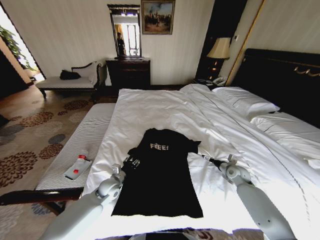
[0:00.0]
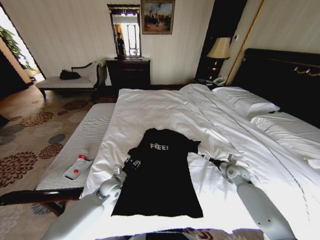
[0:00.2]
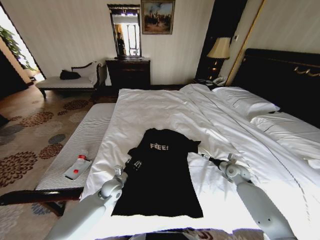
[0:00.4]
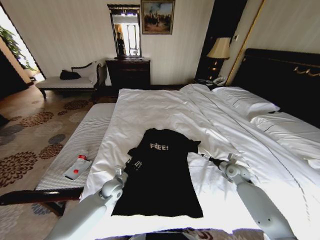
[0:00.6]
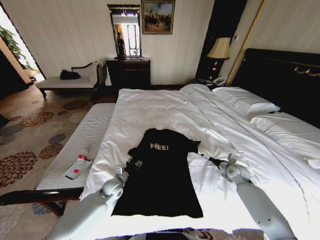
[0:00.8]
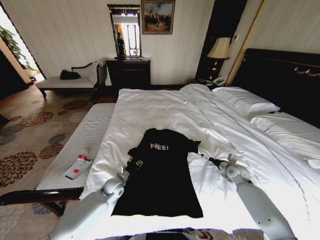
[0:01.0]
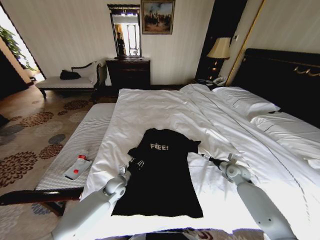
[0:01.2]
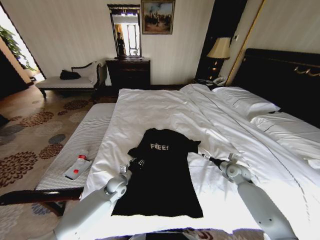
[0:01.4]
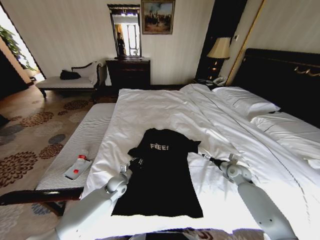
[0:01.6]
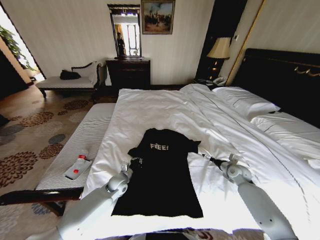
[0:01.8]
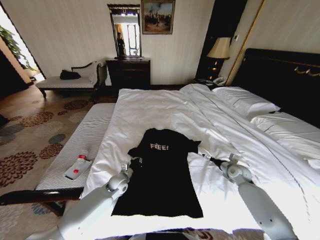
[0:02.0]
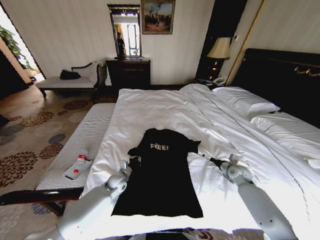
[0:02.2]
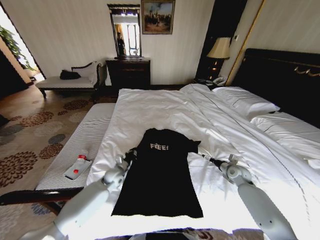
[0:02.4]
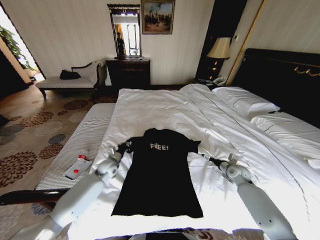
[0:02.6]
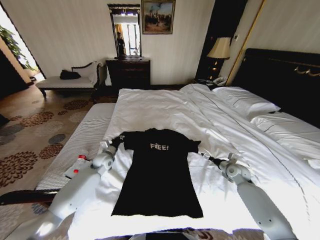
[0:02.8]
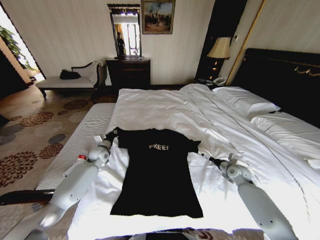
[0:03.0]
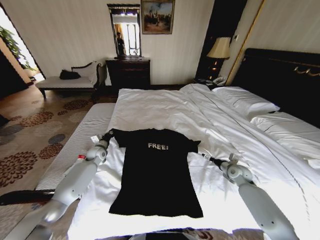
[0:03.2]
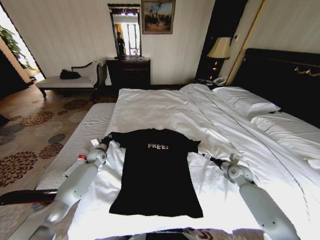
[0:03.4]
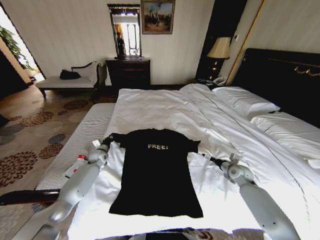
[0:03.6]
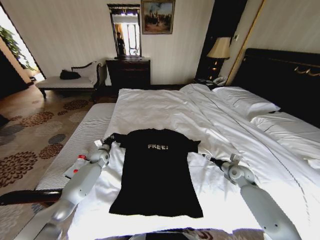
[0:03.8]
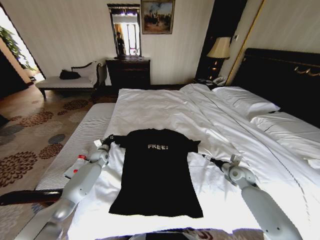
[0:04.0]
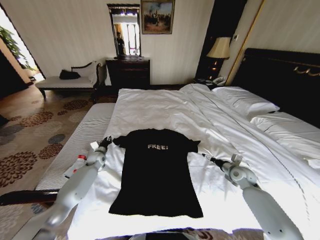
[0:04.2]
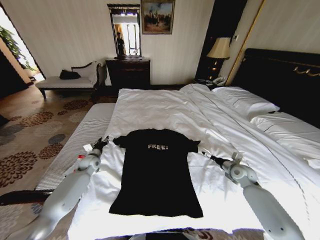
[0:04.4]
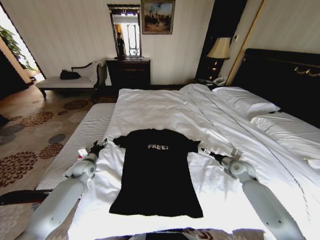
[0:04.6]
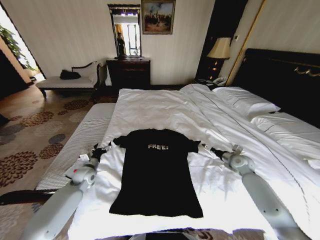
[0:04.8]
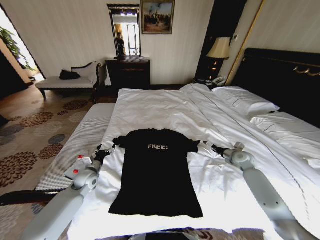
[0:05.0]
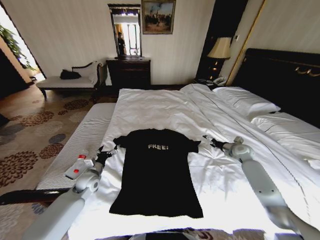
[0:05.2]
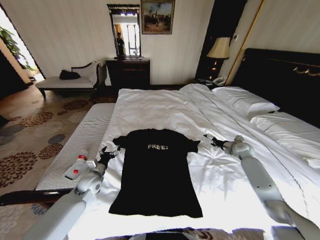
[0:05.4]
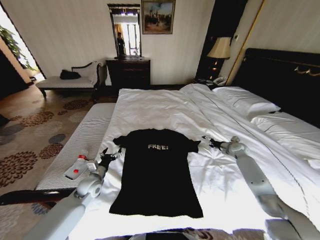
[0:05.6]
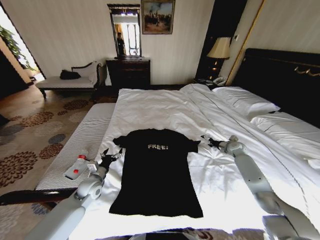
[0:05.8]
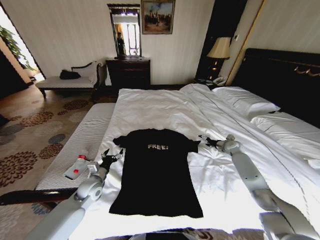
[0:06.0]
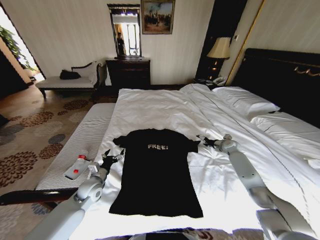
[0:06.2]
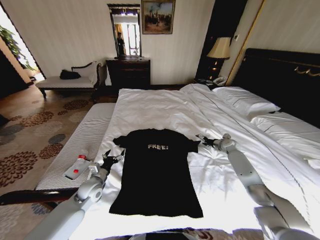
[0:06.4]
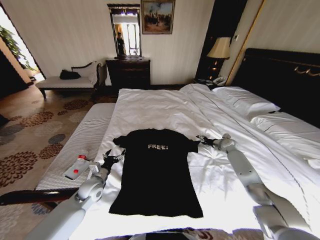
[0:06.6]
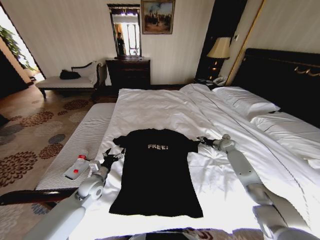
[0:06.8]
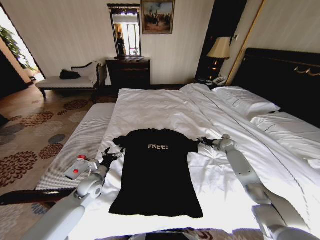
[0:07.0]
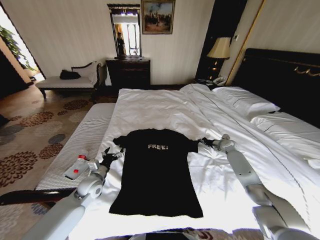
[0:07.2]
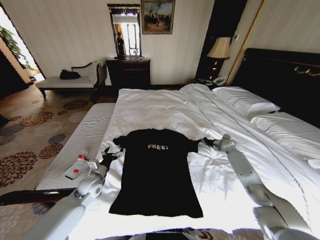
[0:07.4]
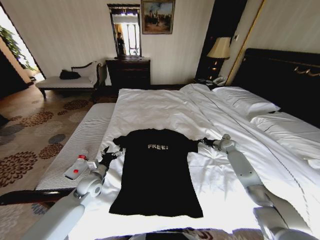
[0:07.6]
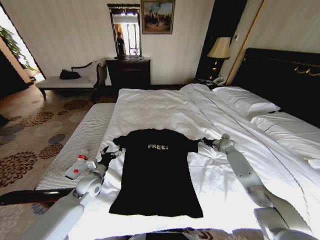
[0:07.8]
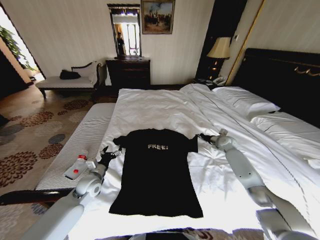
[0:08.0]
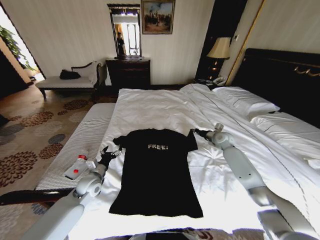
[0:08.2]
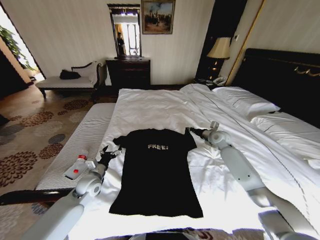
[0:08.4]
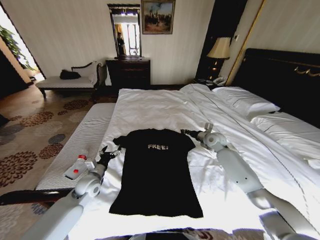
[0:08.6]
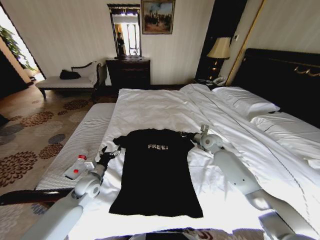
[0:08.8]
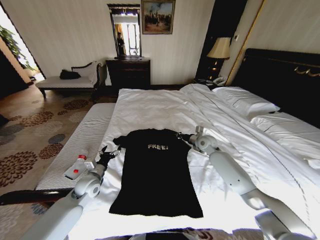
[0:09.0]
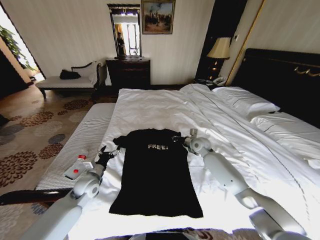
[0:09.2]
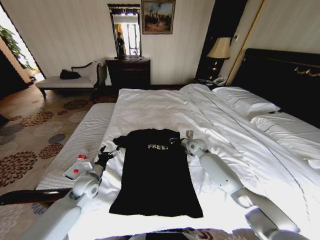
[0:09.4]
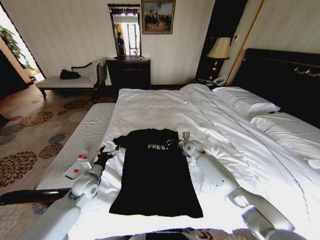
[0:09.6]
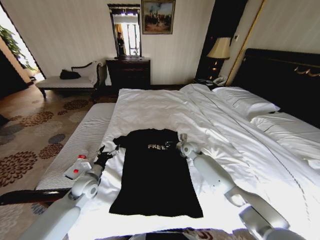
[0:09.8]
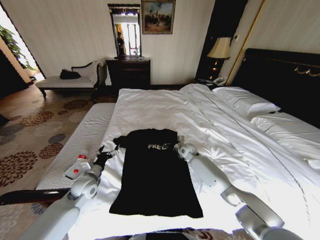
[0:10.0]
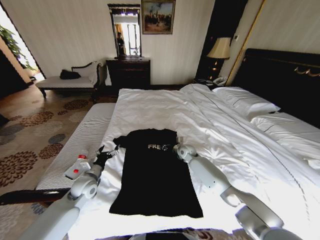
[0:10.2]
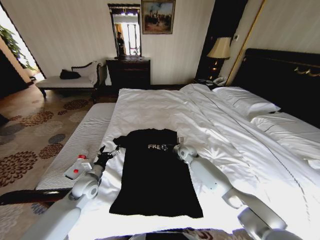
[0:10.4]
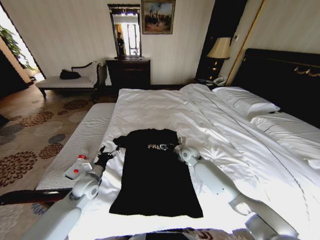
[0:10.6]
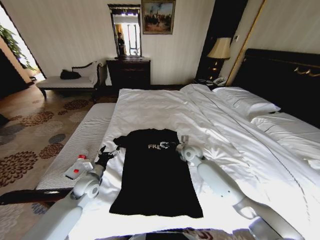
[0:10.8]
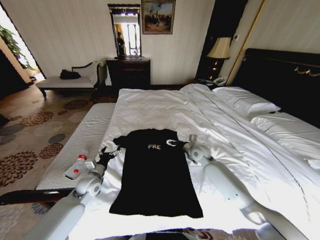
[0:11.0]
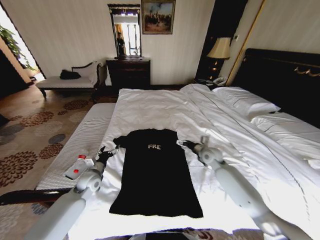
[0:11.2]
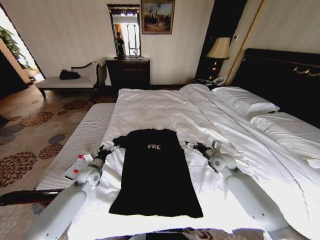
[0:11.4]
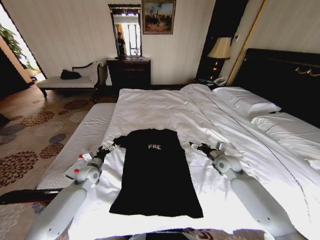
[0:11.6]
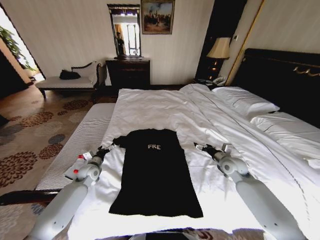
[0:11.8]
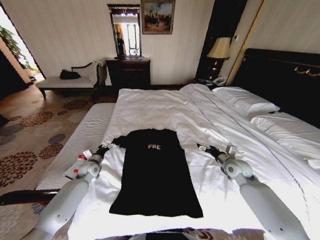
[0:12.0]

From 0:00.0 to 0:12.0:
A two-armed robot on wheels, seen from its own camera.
Task of the whole recording: Fold the clothes on the bed.
From 0:00.0 to 0:01.6: The left gripper closes its fingers.
From 0:01.6 to 0:03.0: The left gripper travels forward, to the left and upward by about 20 cm.
From 0:03.0 to 0:04.4: The left gripper moves to the left, some 5 cm, and opens up.
From 0:04.4 to 0:06.0: The left gripper shifts about 15 cm backward and to the right, and opens its fingers, while the right gripper travels forward by about 15 cm.
From 0:06.0 to 0:07.6: The right gripper closes up.
From 0:07.6 to 0:09.0: The right gripper moves to the left, roughly 20 cm.
From 0:09.0 to 0:10.4: The right gripper travels to the left and downward by roughly 10 cm.
From 0:10.4 to 0:12.0: The right gripper is displaced to the right and backward by approximately 25 cm, and opens up, while the left gripper heads forward, covering some 10 cm.

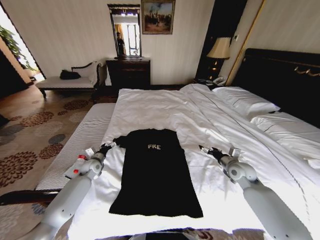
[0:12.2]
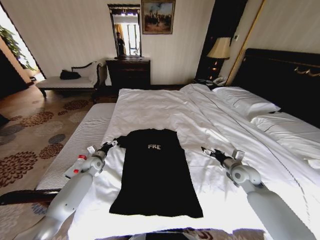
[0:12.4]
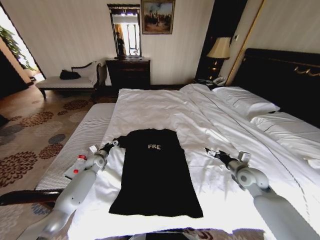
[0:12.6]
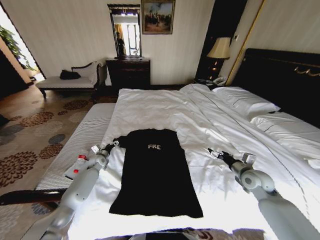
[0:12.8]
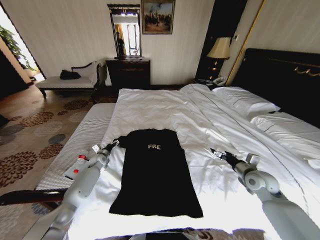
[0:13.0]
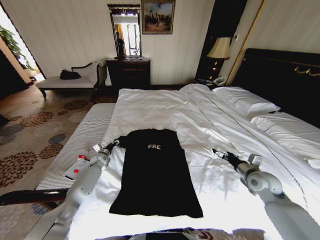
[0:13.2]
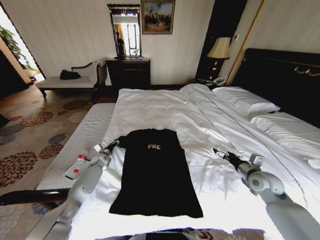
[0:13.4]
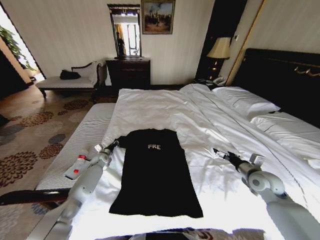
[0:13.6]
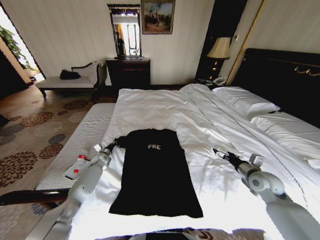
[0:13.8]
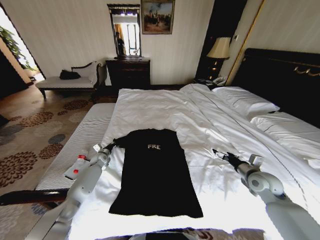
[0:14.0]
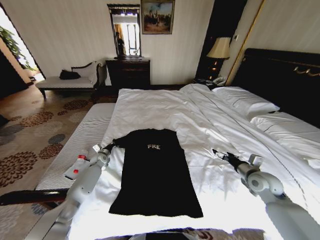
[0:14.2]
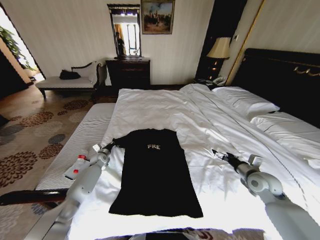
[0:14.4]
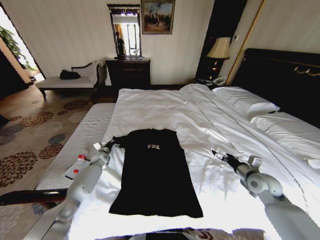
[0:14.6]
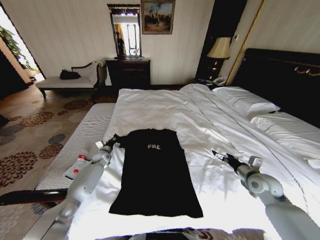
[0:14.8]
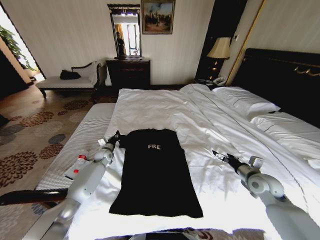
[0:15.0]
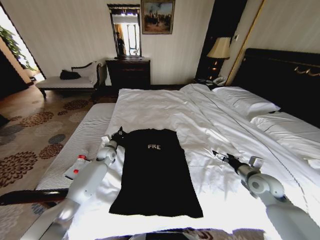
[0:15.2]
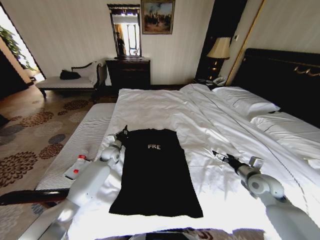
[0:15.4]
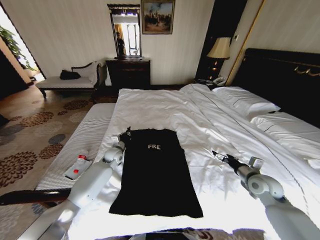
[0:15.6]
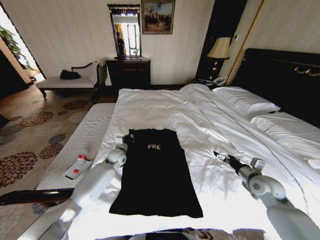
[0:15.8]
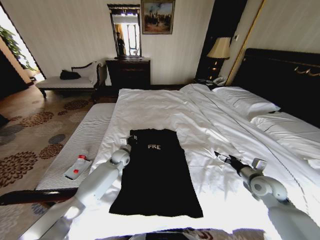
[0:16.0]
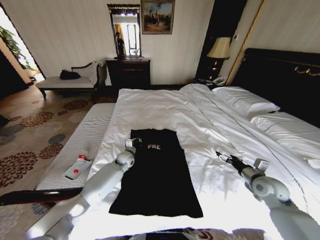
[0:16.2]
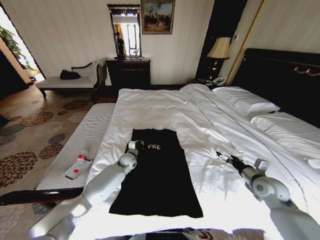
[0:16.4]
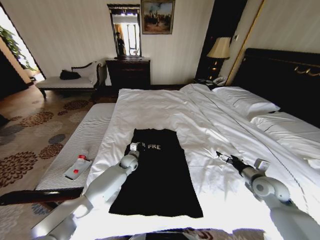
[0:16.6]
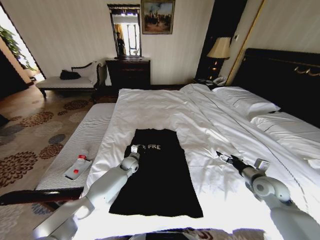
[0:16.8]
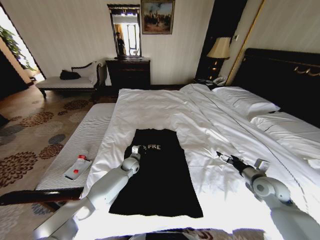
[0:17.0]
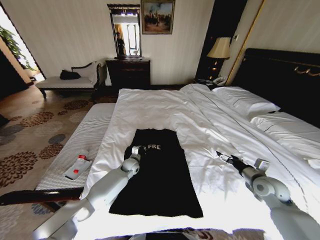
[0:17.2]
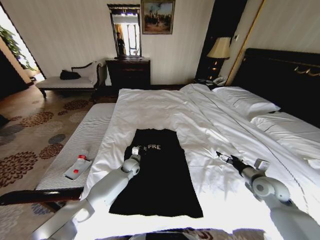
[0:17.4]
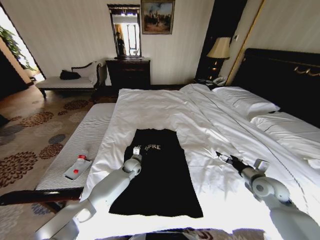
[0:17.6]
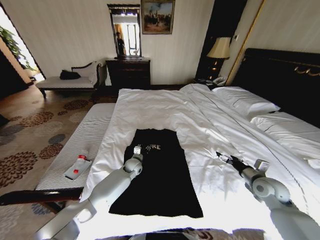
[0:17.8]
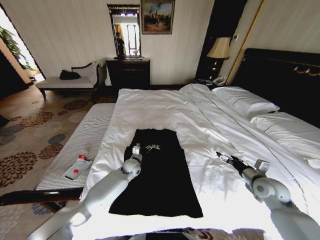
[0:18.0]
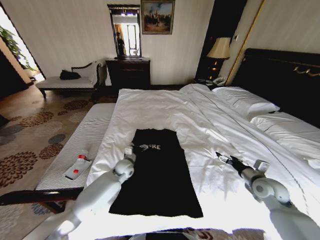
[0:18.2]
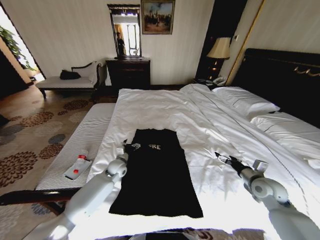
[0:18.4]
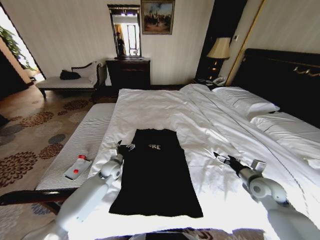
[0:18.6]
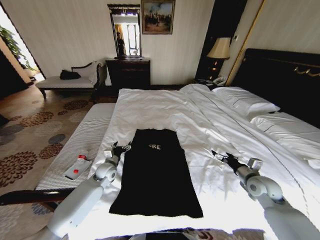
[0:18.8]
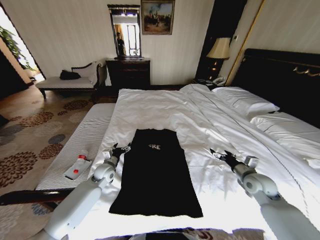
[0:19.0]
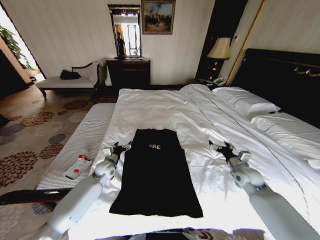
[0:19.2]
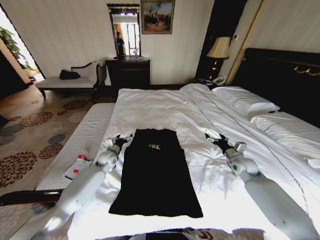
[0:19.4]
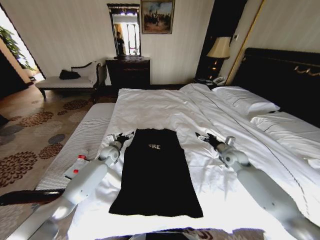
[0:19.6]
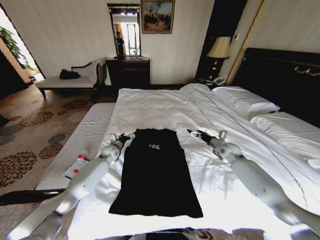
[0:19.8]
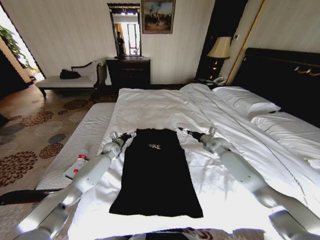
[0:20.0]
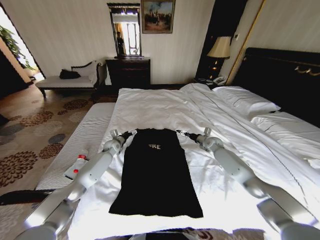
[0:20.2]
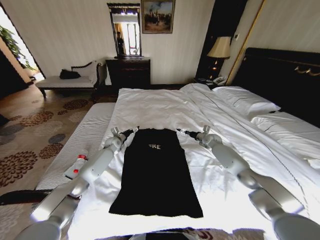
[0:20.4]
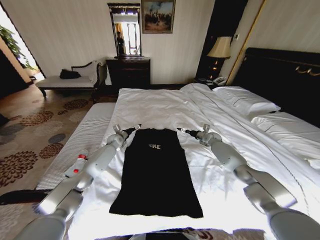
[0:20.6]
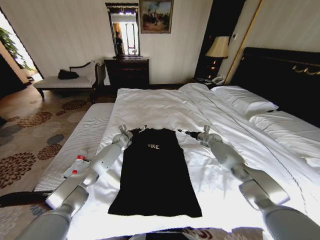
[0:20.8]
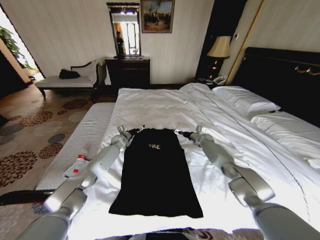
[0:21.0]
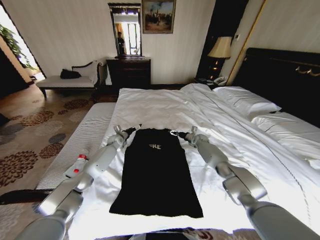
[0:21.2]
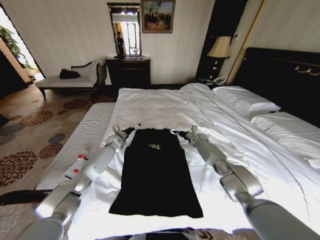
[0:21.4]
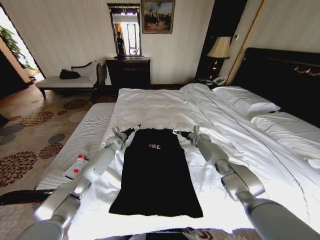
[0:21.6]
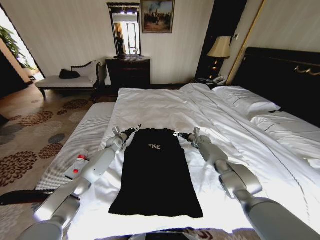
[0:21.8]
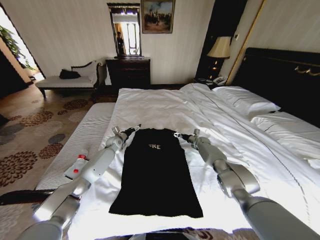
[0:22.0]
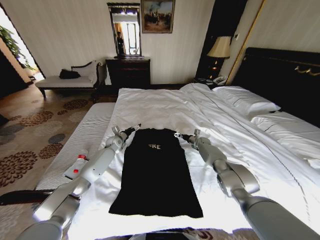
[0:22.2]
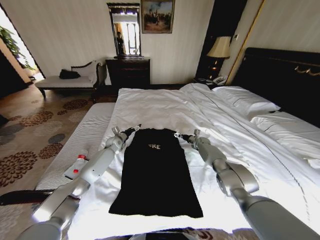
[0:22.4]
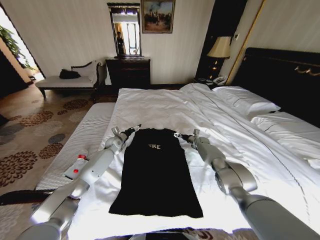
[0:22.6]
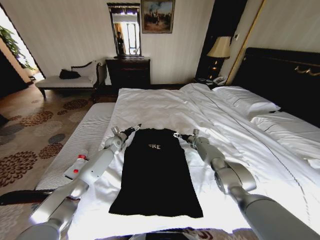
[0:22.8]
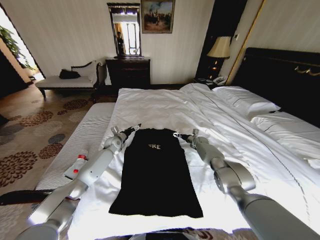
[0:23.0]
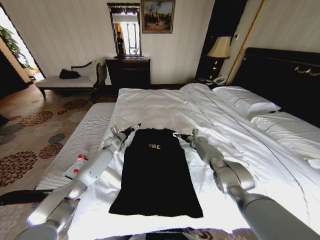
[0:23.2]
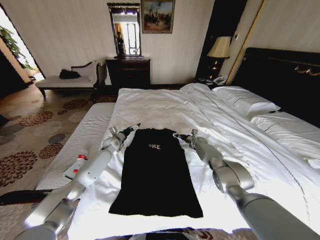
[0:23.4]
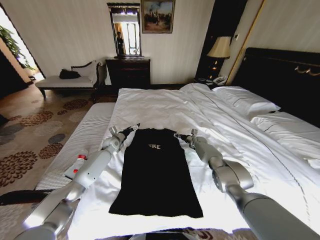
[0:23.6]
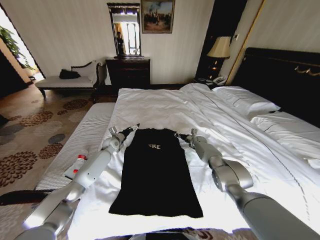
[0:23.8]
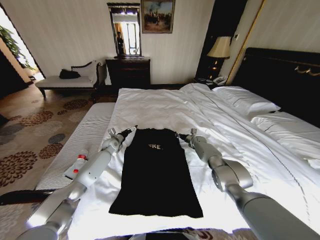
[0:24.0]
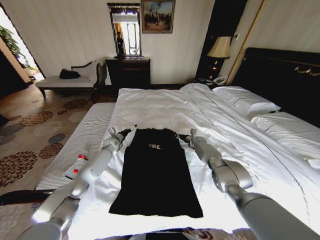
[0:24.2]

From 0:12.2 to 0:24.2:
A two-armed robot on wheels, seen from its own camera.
Task of the whole recording: Fold the clothes on the bed.
From 0:12.2 to 0:13.8: The right gripper goes roughly 5 cm backward; the left gripper is displaced forward by about 10 cm, and closes its fingers.
From 0:13.8 to 0:15.2: The left gripper moves upward and to the right, approximately 10 cm.
From 0:15.2 to 0:16.6: The left gripper heads to the right, covering some 15 cm.
From 0:16.6 to 0:18.2: The left gripper shifts by approximately 5 cm, and opens its fingers.
From 0:18.2 to 0:19.8: The left gripper is displaced to the left and forward by some 15 cm; the right gripper heads forward, covering some 20 cm.
From 0:19.8 to 0:21.2: The right gripper moves forward, downward and to the left, roughly 20 cm; the left gripper travels forward by roughly 10 cm.
From 0:21.2 to 0:22.6: The grippers stay close to where they were, moving slightly.
From 0:22.6 to 0:24.2: The right gripper closes its fingers.
